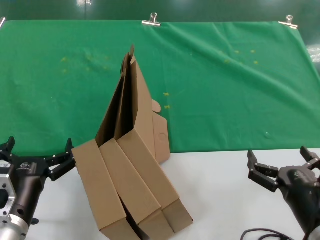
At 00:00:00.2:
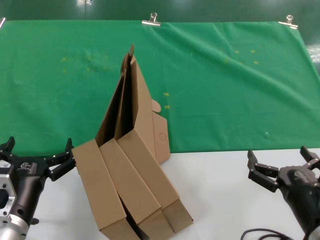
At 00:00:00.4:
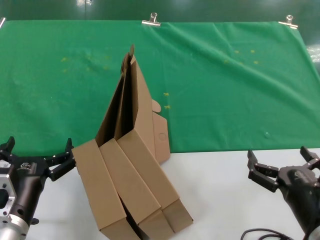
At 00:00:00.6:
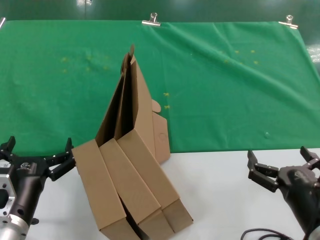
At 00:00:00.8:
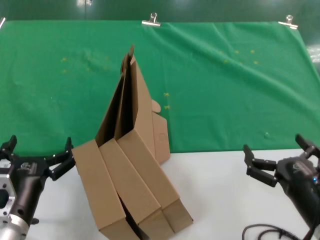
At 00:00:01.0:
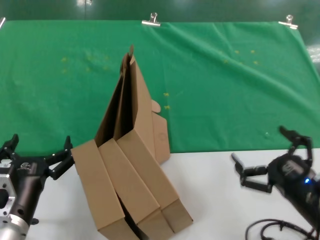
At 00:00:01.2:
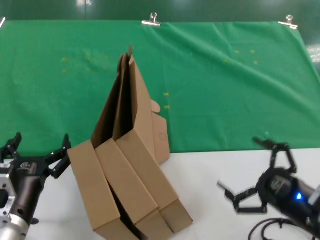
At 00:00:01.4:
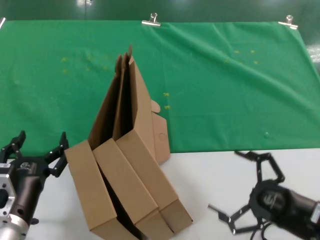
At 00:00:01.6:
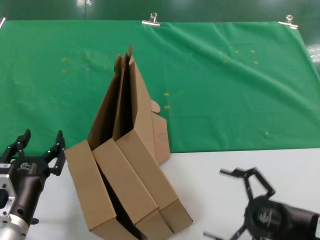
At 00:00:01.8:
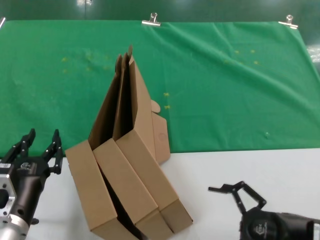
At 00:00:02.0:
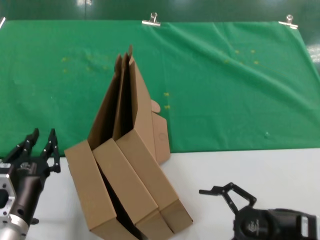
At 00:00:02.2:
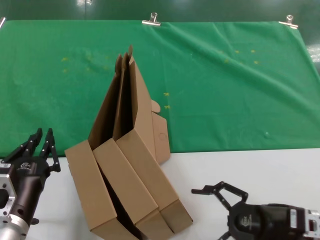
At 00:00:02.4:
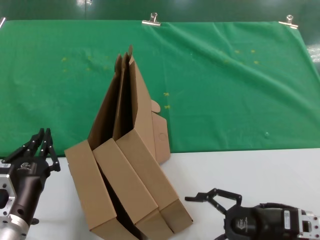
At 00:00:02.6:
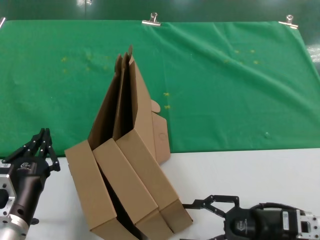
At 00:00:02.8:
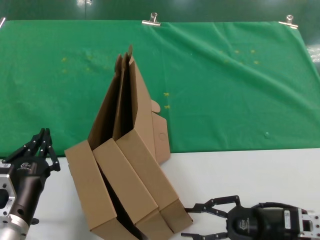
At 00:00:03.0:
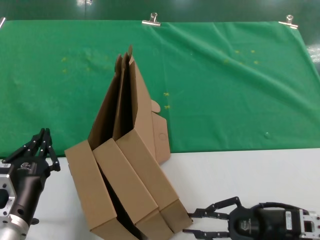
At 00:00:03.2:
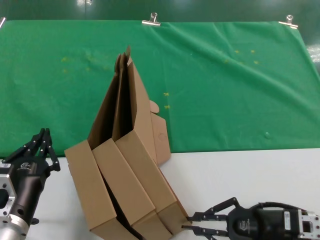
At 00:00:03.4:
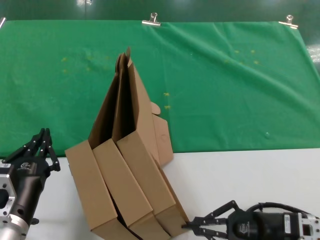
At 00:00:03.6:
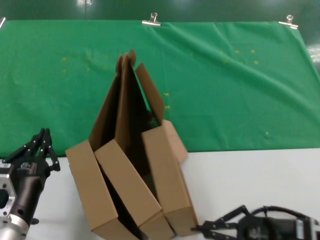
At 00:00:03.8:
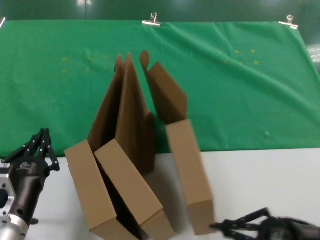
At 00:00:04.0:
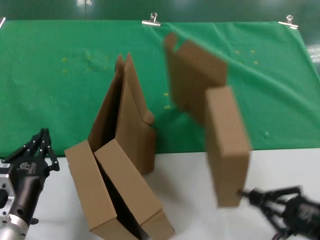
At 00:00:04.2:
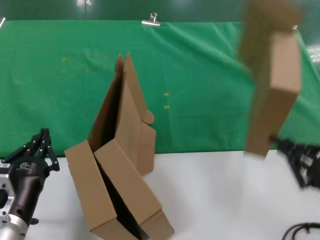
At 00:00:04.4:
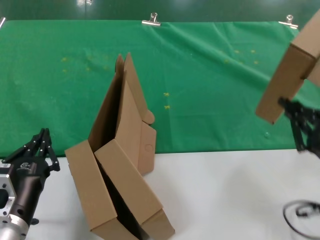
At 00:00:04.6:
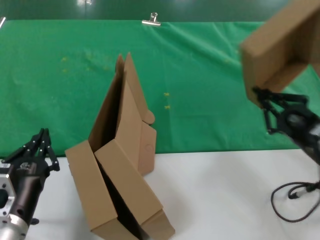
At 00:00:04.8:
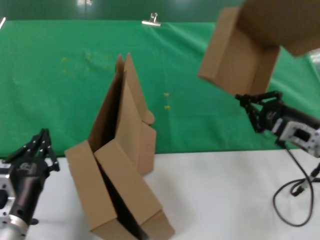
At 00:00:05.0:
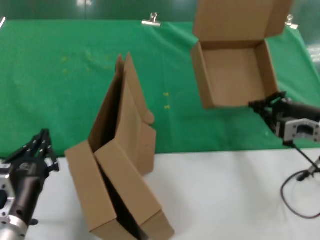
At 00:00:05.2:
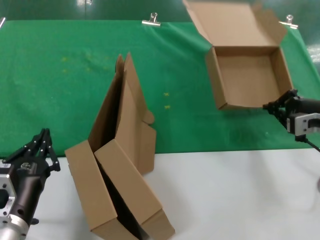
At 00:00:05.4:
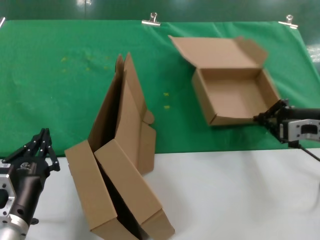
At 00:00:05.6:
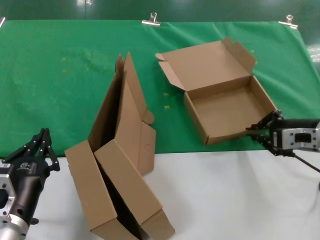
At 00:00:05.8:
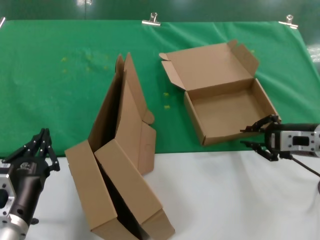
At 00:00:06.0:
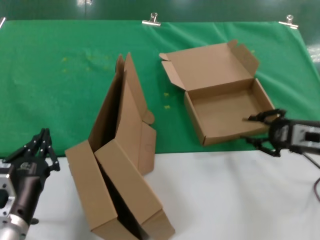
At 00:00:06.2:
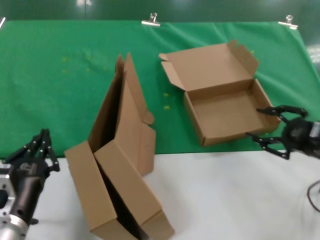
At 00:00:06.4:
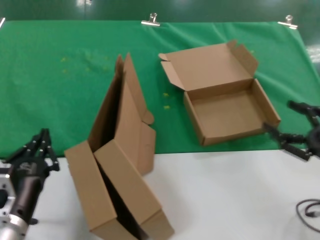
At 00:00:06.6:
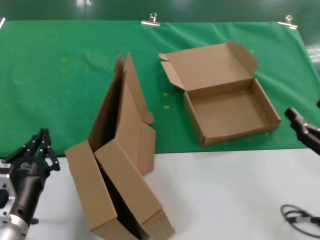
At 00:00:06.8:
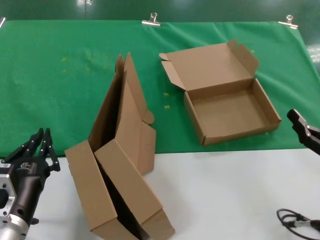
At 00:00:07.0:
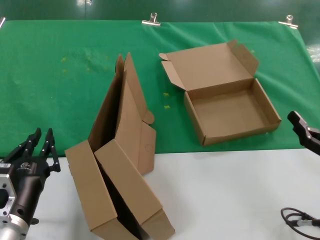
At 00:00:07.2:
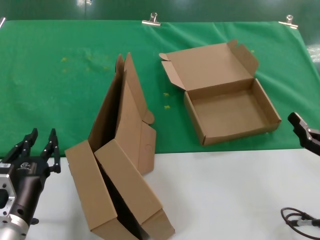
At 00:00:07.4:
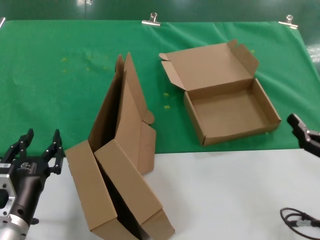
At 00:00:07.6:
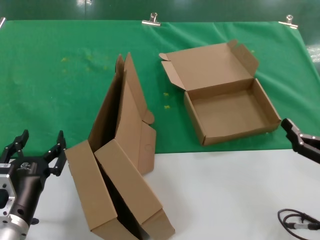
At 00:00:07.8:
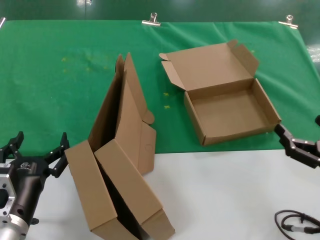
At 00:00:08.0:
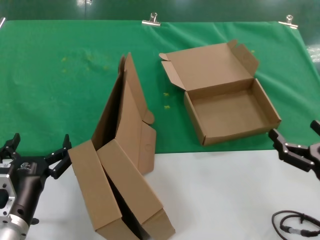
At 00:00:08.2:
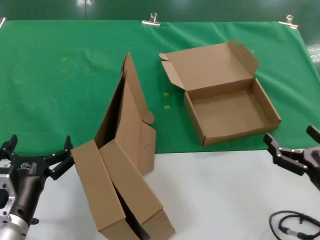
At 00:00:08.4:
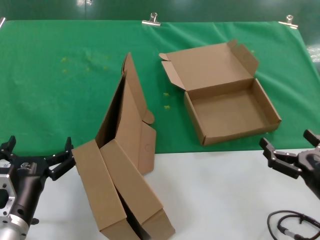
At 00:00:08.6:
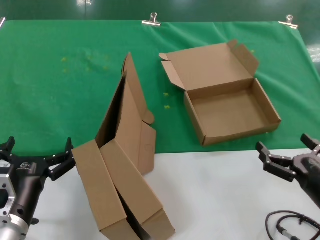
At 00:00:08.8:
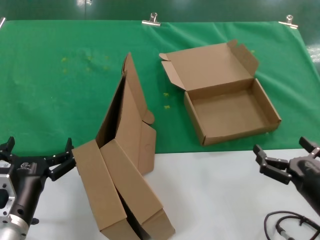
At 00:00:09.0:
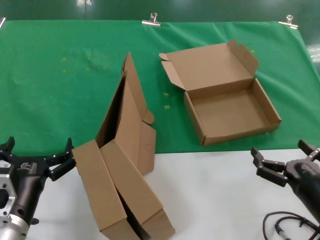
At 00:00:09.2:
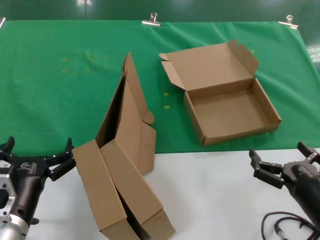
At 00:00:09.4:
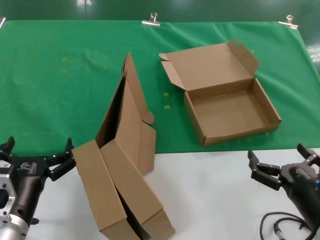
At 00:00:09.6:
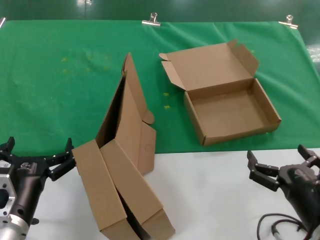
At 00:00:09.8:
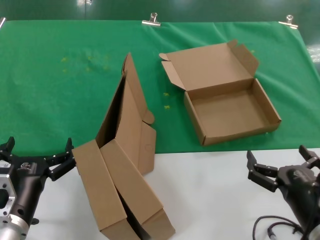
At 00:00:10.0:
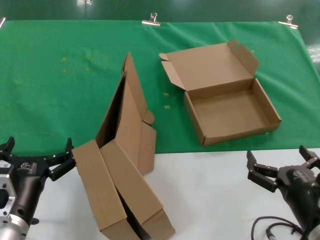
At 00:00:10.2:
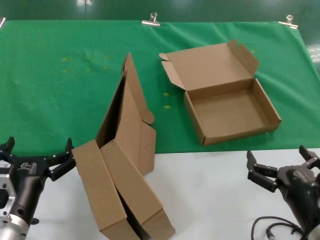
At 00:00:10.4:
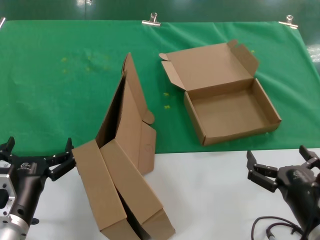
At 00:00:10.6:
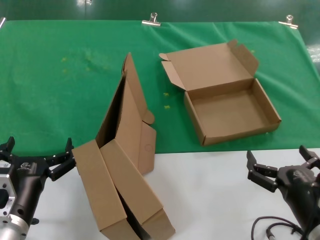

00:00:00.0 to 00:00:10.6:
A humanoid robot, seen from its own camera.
Task of the whole recording: pick up the paper box and put it at the back.
Step, 00:00:00.0 to 00:00:03.4: Grasp the paper box.
Step, 00:00:03.6 to 00:00:05.6: Place the paper box on the table.
00:00:00.0 to 00:00:01.6: The right hand goes about 10 cm to the right and forward.
00:00:01.6 to 00:00:03.0: The right hand changes place by about 5 cm.
00:00:03.0 to 00:00:04.6: The right hand shifts roughly 10 cm upward.
00:00:04.6 to 00:00:06.0: The right hand shifts some 10 cm forward and upward.
00:00:06.0 to 00:00:07.6: The right hand moves backward and downward, some 15 cm.
00:00:07.6 to 00:00:09.0: The right hand shifts approximately 10 cm to the left.
00:00:09.0 to 00:00:10.6: The right hand goes approximately 5 cm to the left.
